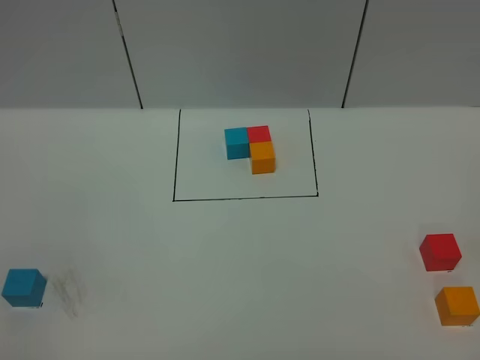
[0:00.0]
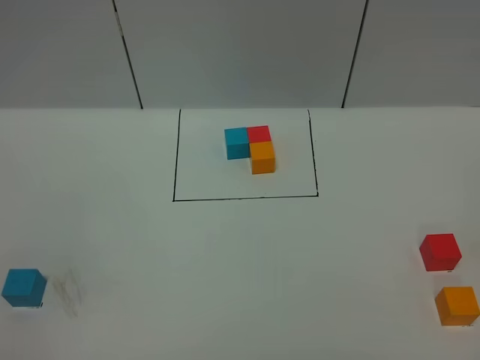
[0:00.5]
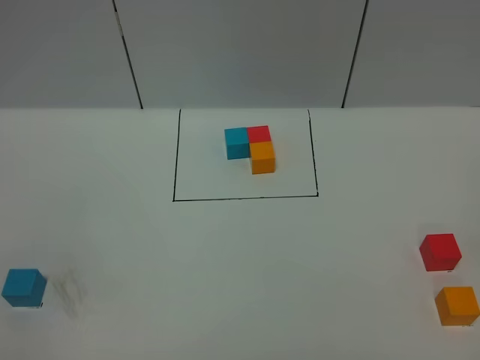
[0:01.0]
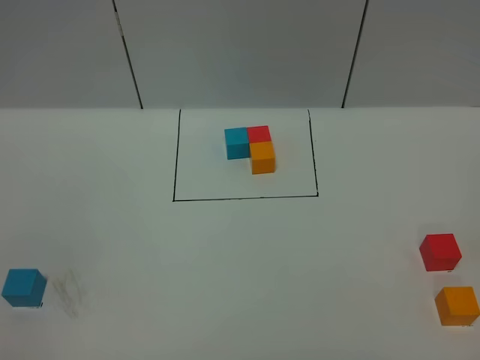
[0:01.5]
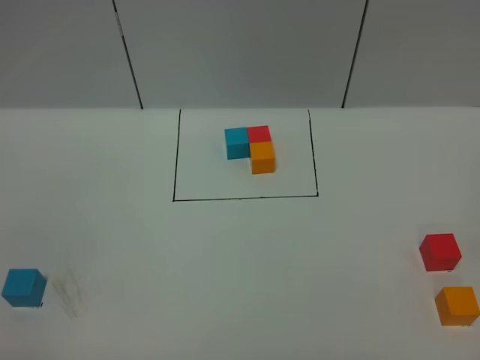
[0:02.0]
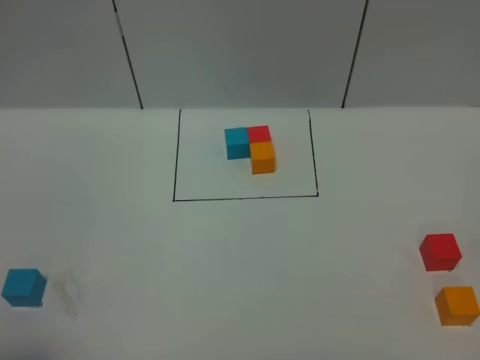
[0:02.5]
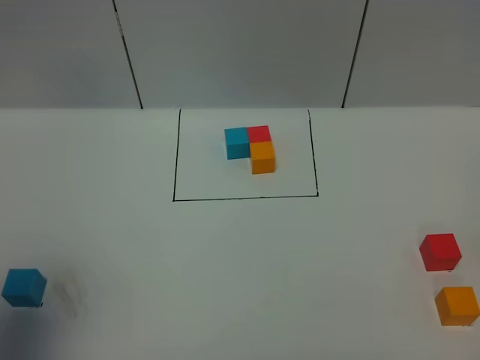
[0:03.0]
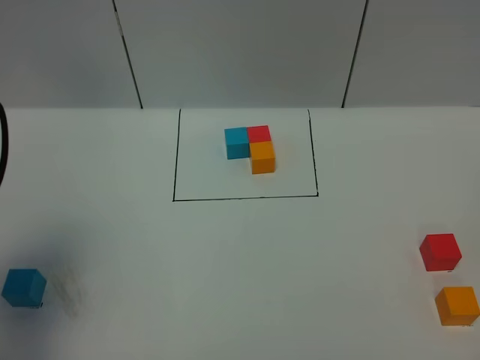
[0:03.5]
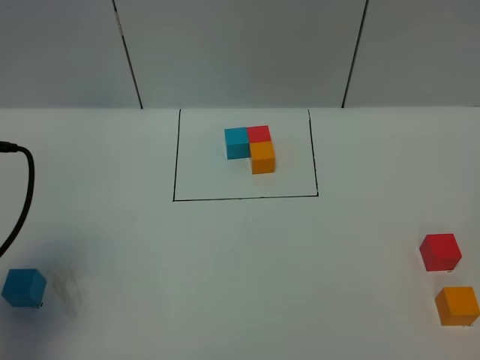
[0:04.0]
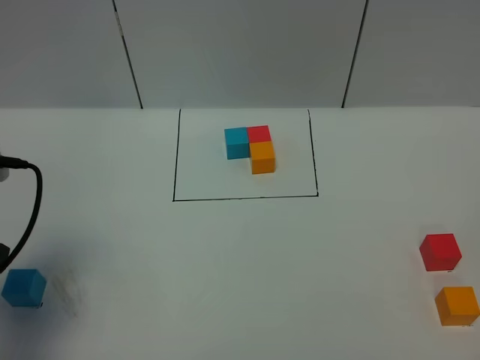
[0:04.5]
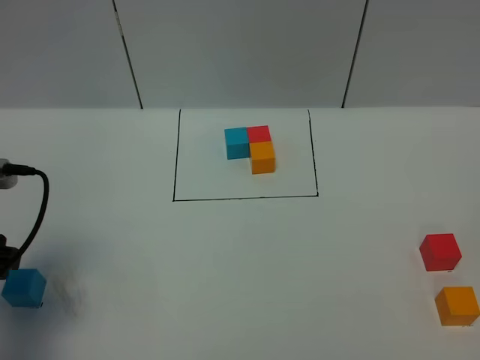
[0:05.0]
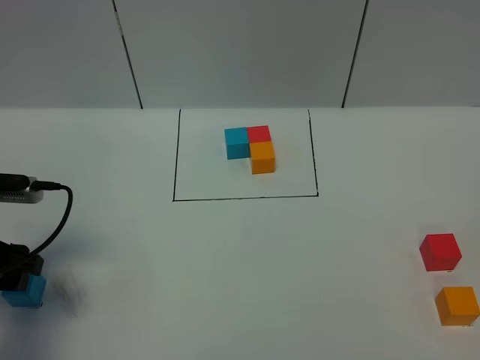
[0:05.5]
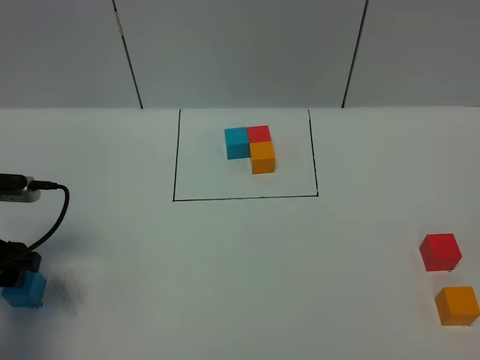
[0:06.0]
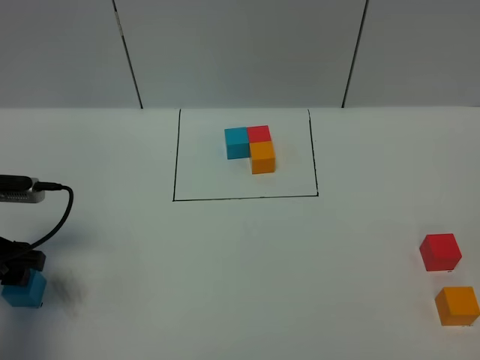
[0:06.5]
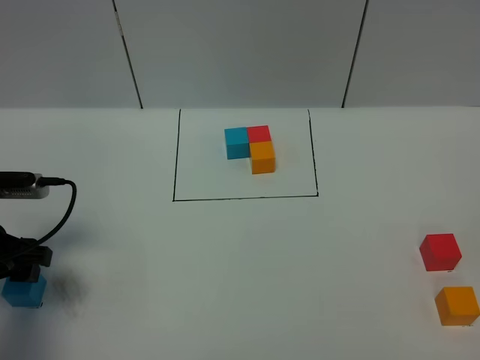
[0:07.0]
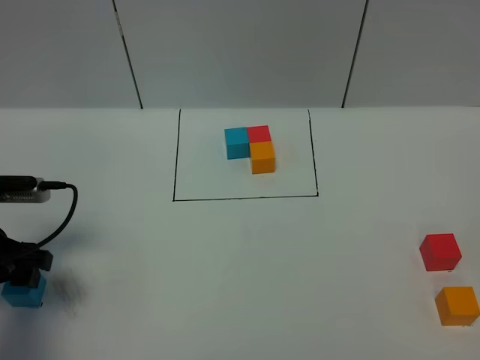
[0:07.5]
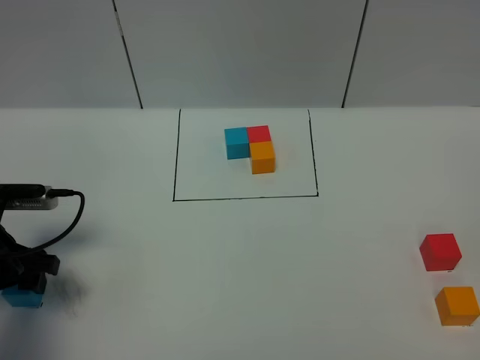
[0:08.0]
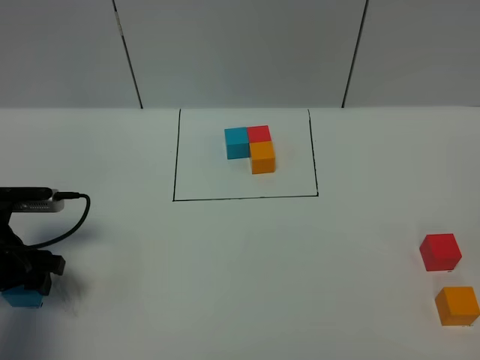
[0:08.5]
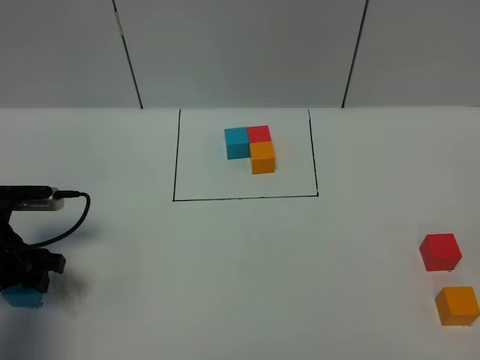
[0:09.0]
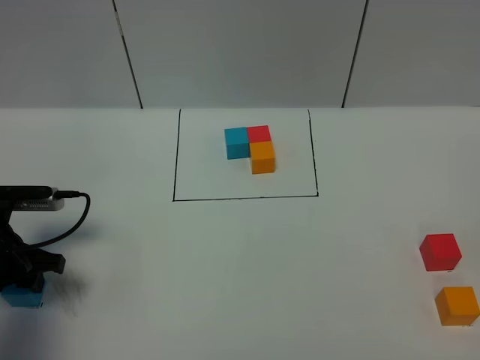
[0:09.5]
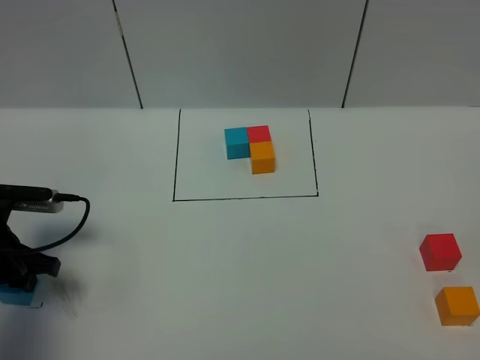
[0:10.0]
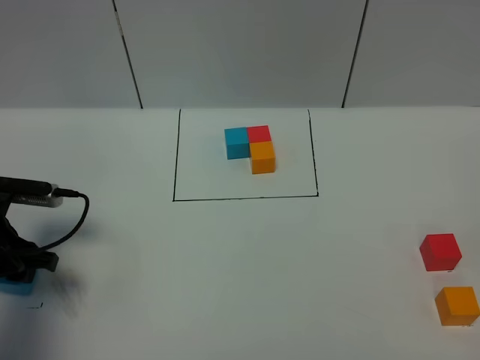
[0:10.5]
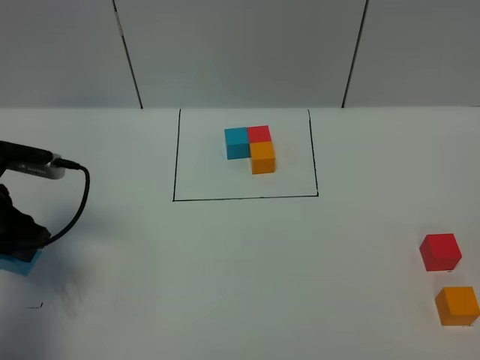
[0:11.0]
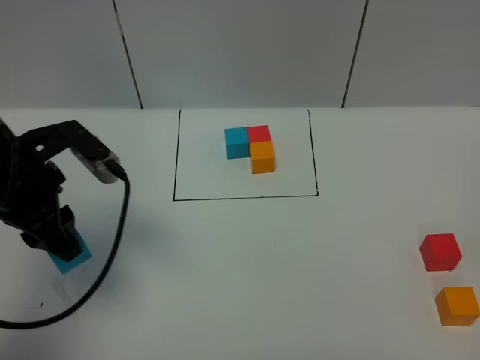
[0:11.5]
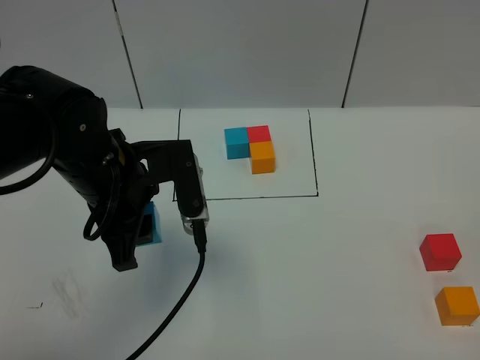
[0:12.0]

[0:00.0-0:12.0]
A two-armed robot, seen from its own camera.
Task of the whole recording: According to the building block template in front, assemble the scattered blocks together.
0:02.0 to 0:04.0: The left gripper travels forward by some 20 cm.
0:04.0 to 0:06.0: The left gripper moves downward, some 10 cm.
0:06.0 to 0:08.0: The grippers make only small movements.
0:08.0 to 0:10.0: The left gripper closes up.
0:10.0 to 0:12.0: The left gripper heads to the right and upward, covering about 20 cm.

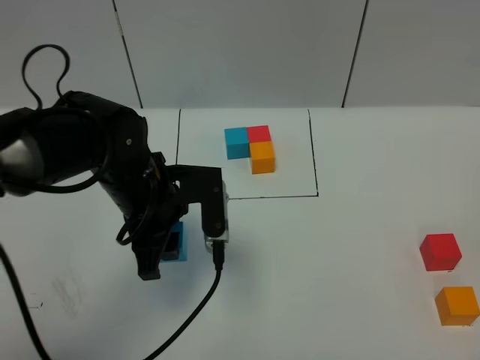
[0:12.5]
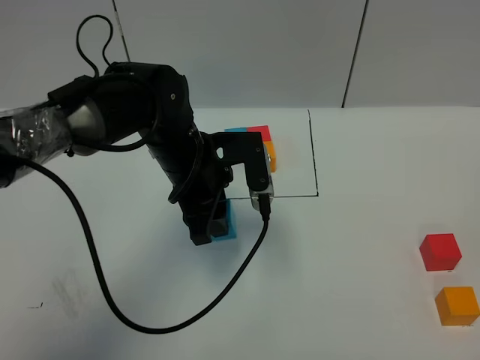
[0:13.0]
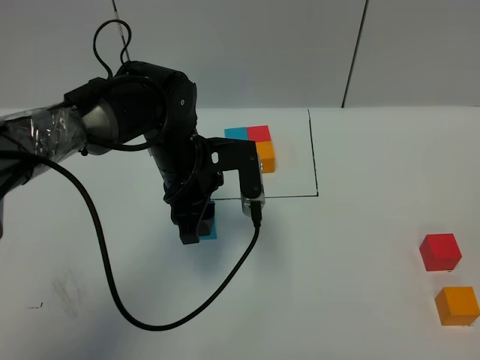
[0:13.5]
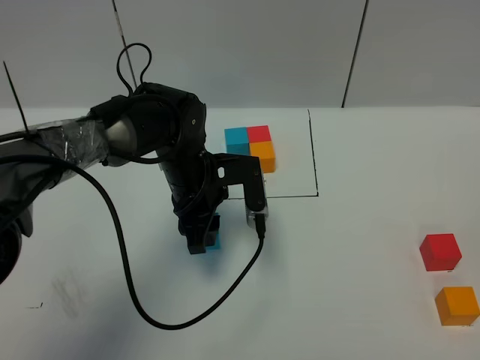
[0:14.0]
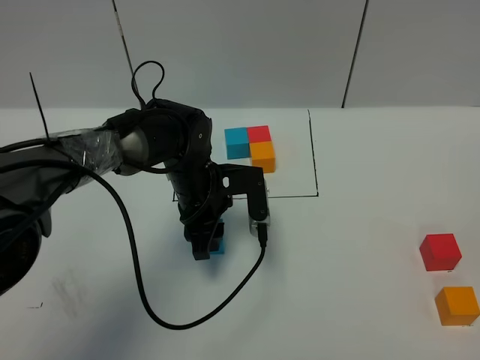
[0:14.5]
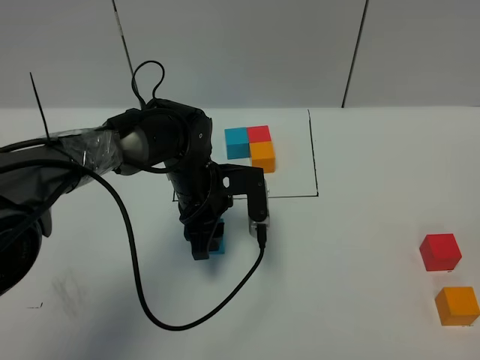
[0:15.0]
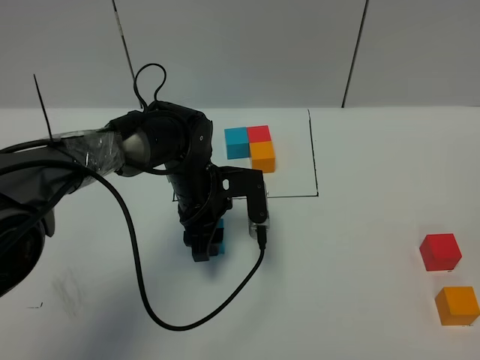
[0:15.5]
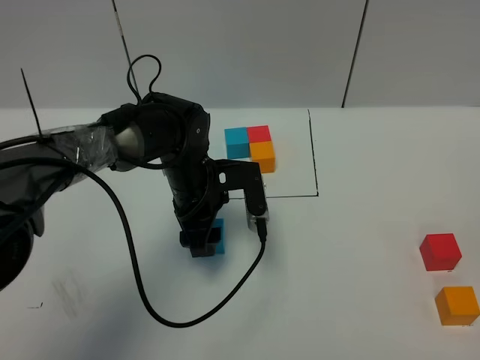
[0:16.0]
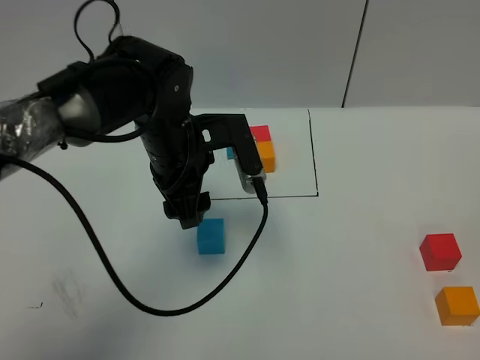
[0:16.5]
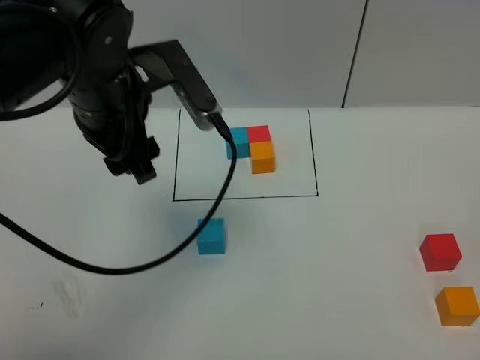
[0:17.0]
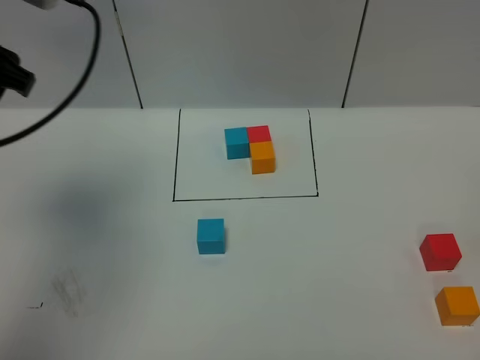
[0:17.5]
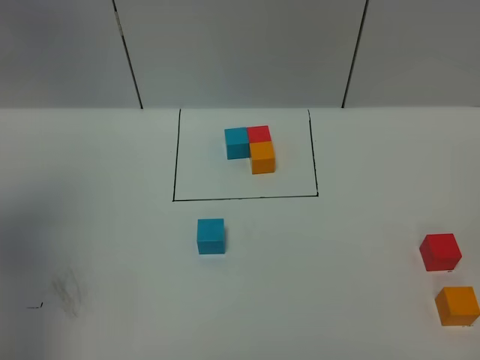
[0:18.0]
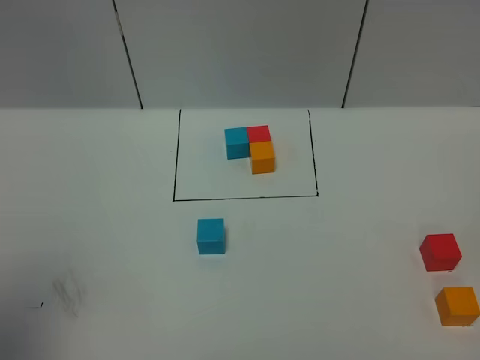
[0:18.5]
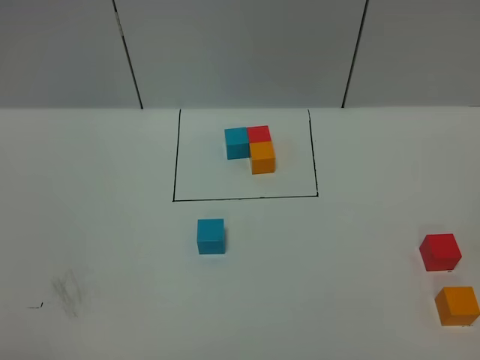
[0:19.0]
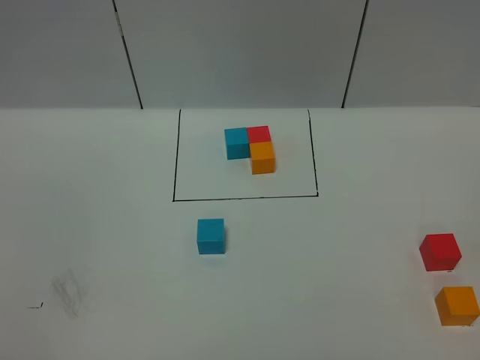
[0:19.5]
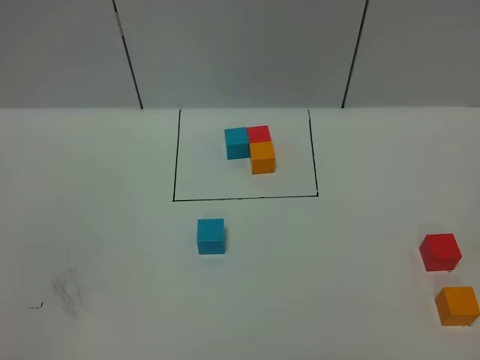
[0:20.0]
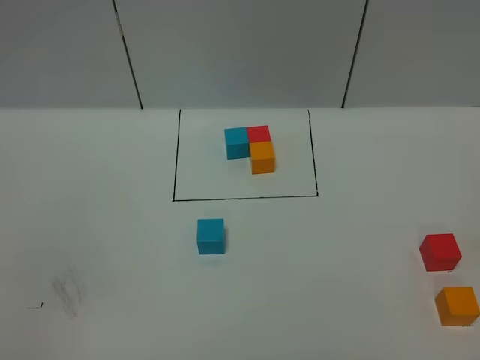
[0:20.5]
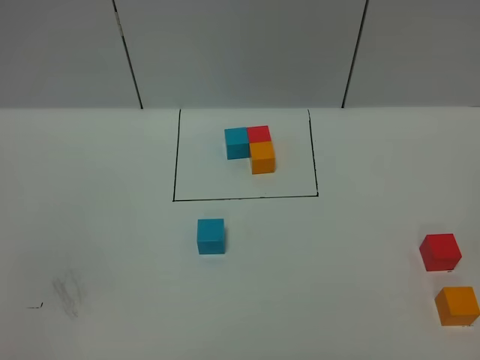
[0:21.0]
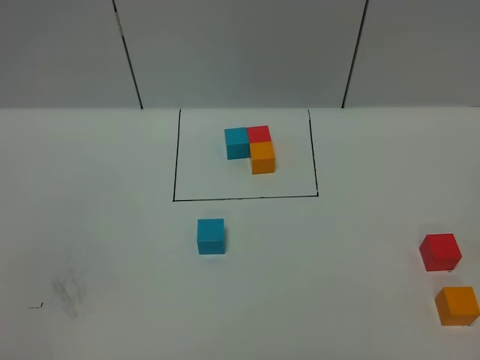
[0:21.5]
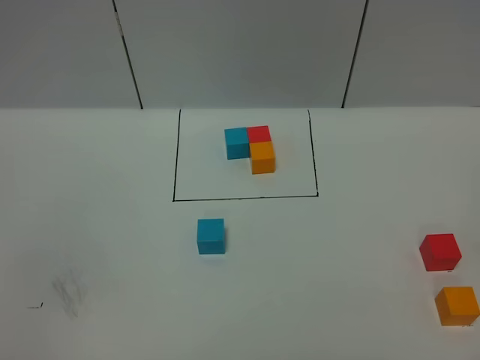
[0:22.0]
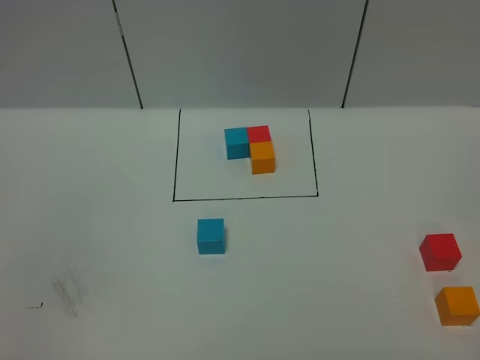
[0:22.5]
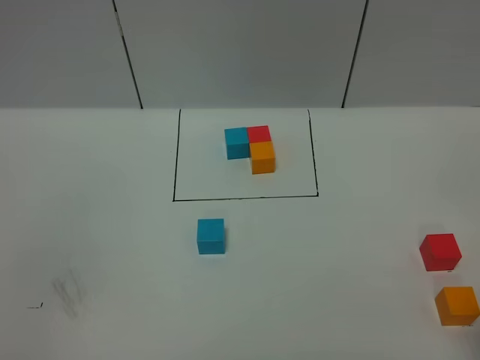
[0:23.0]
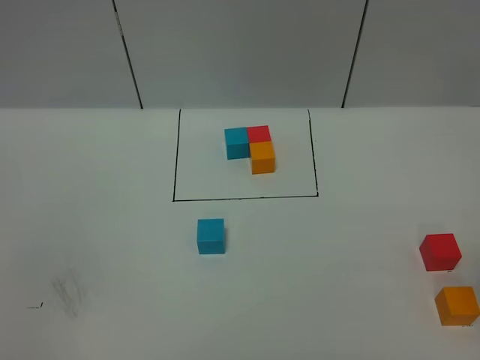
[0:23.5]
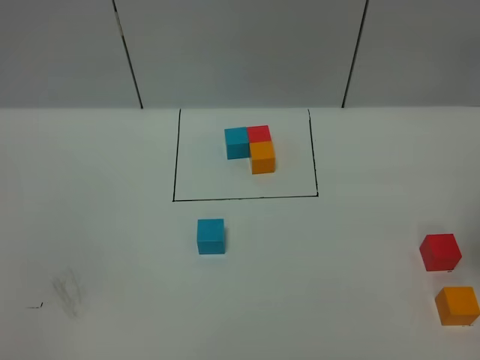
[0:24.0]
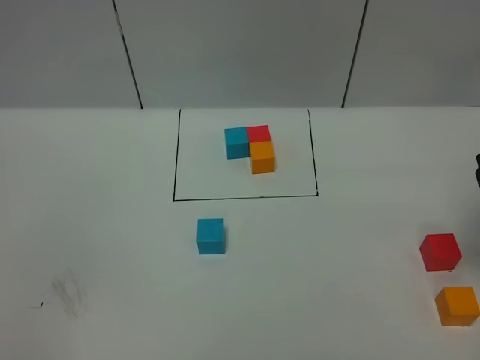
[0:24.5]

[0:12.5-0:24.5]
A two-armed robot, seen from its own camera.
Task of the whole recording: According to the building block template in front, assemble the scattered blocks together.
Step, 0:12.5 to 0:16.0: Put the blue cube in the center of the table.
0:12.5 to 0:14.5: The left gripper moves downward and forward, roughly 10 cm.
0:14.5 to 0:16.5: The left gripper is displaced upward by some 10 cm, and opens.
0:16.5 to 0:18.5: The left gripper goes some 40 cm backward, to the left and upward.
0:18.5 to 0:20.5: The left gripper travels downward and backward by some 20 cm.

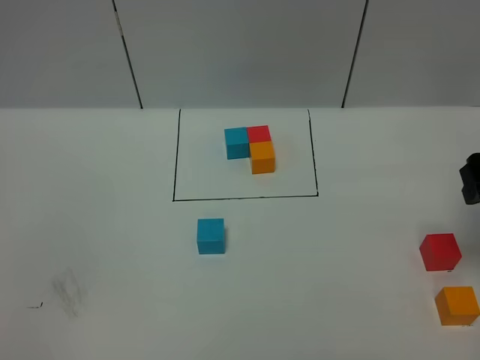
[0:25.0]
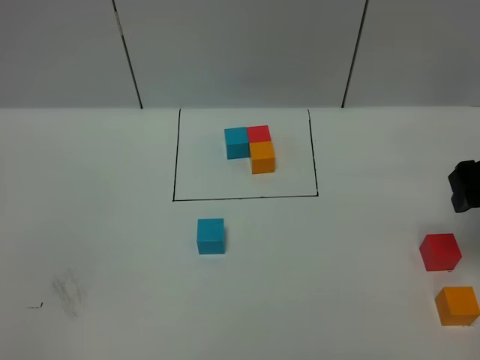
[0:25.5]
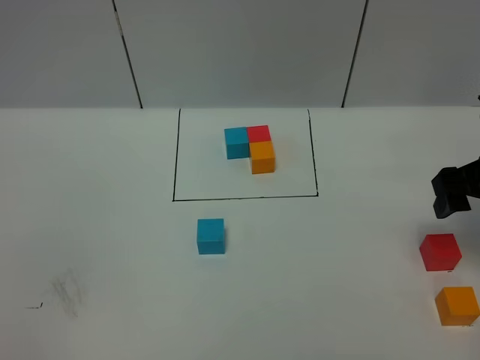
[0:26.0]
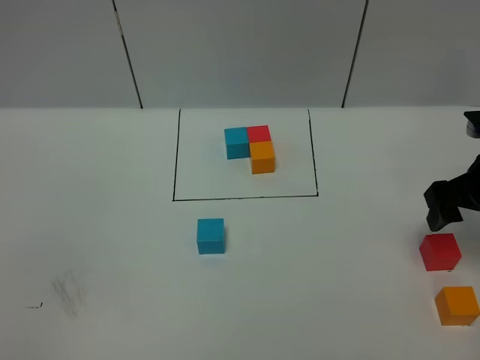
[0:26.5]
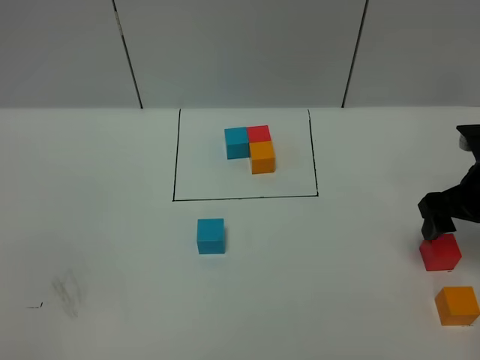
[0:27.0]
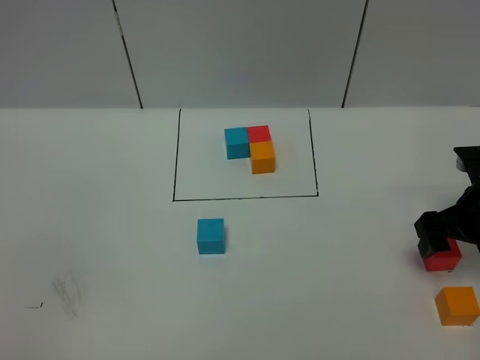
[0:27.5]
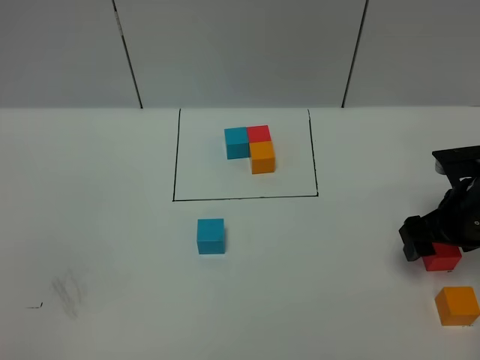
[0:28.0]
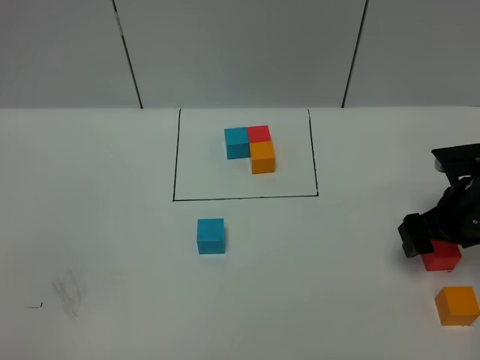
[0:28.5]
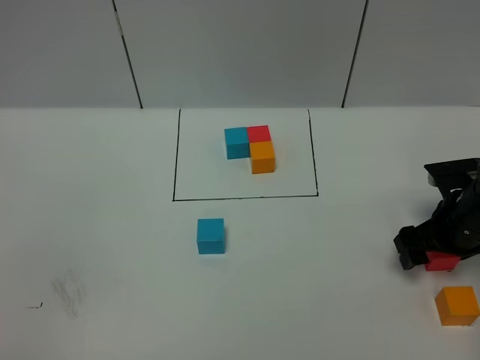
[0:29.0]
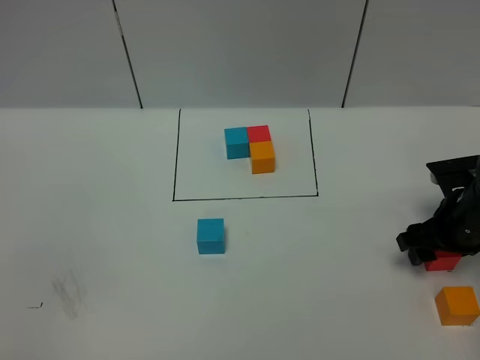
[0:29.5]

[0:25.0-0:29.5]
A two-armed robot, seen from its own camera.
Task of the whole recording: According to the building block template in front, assemble the scattered blocks together.
0:25.0 to 0:27.0: The right gripper moves downward, some 10 cm.
0:27.0 to 0:29.5: The right gripper goes some 5 cm downward.
